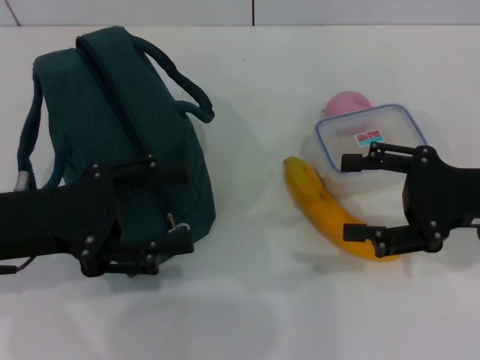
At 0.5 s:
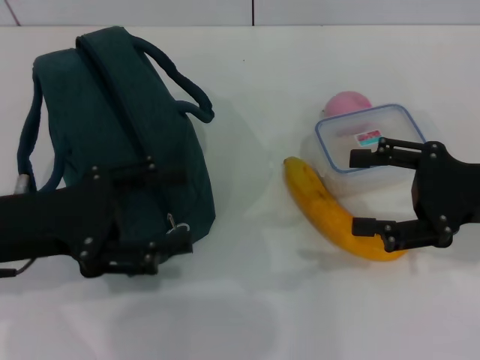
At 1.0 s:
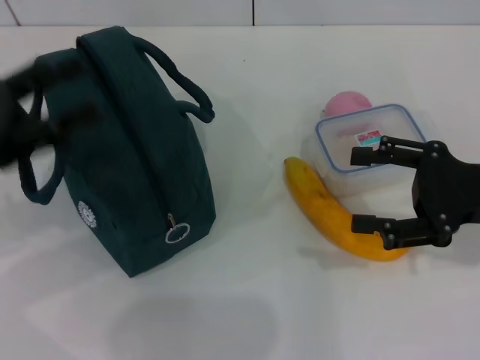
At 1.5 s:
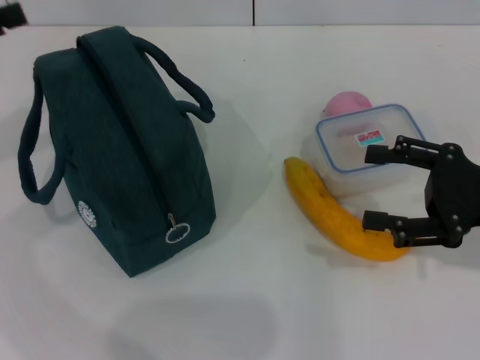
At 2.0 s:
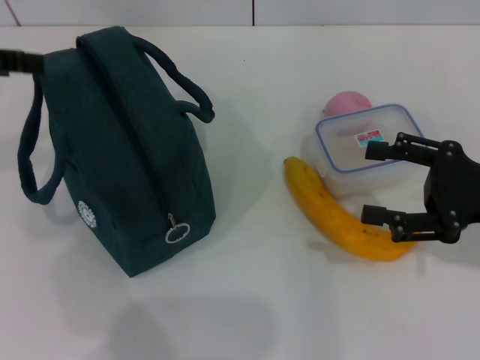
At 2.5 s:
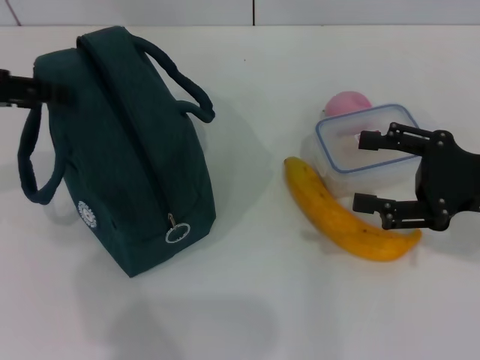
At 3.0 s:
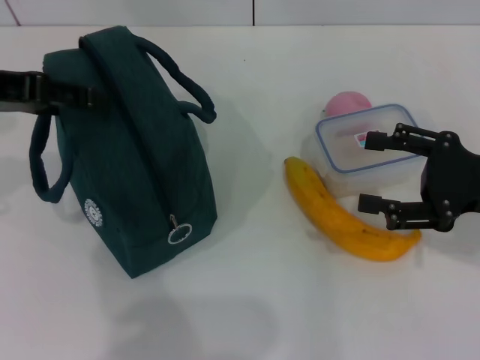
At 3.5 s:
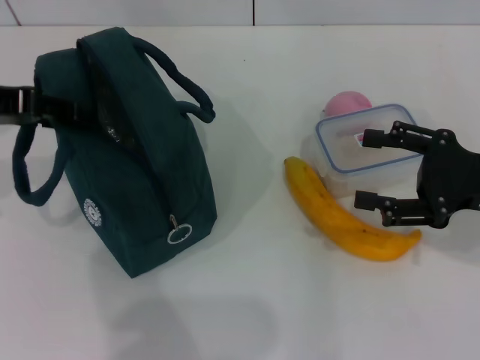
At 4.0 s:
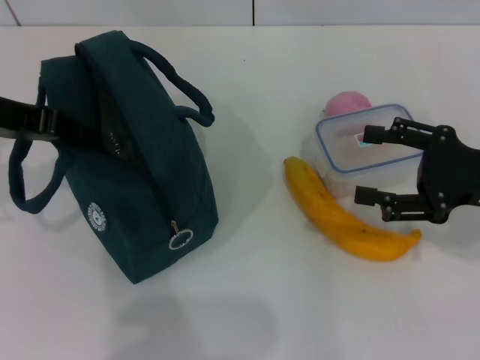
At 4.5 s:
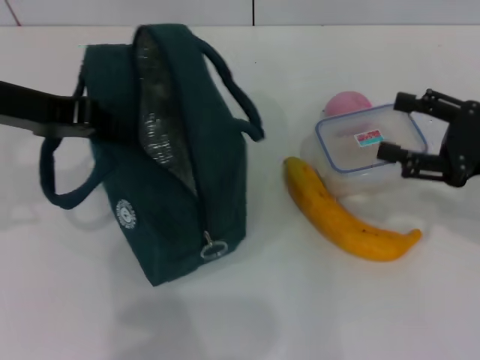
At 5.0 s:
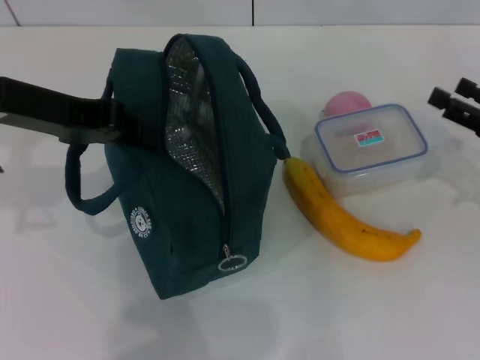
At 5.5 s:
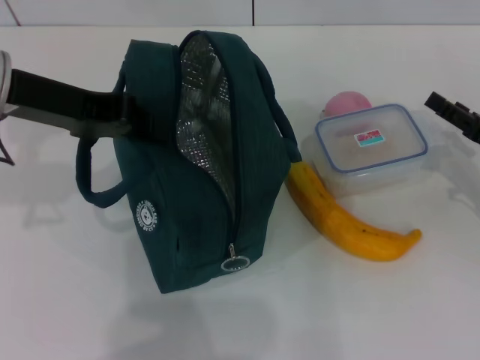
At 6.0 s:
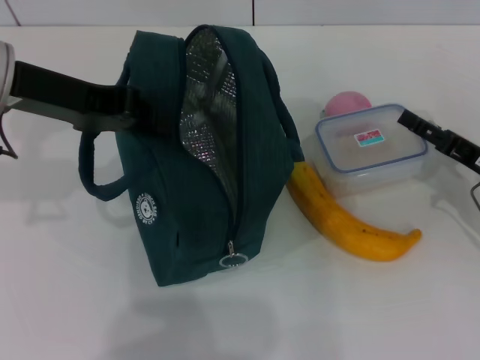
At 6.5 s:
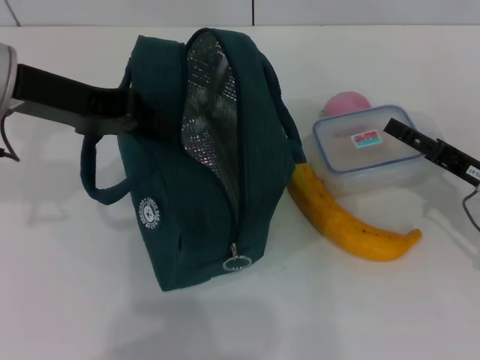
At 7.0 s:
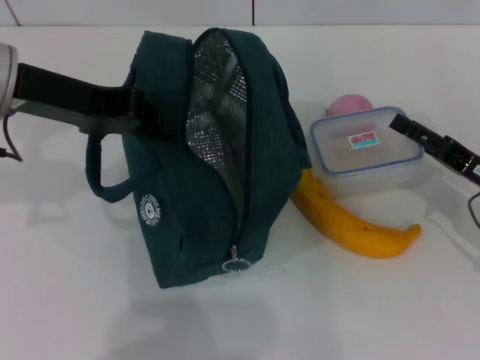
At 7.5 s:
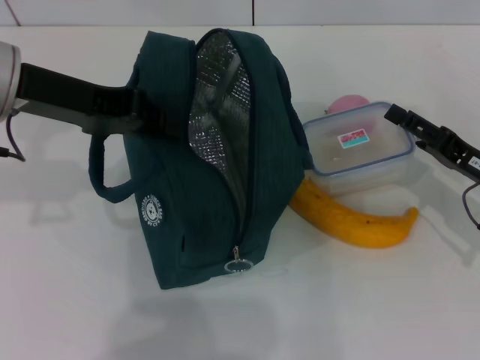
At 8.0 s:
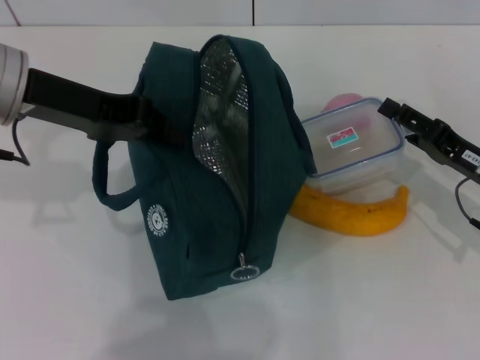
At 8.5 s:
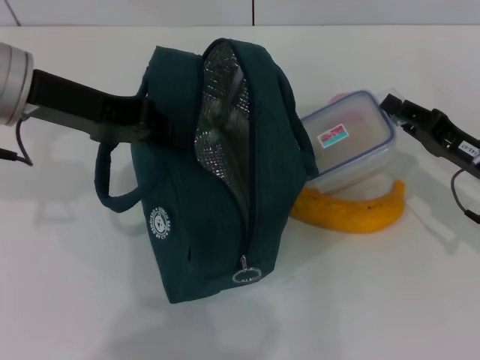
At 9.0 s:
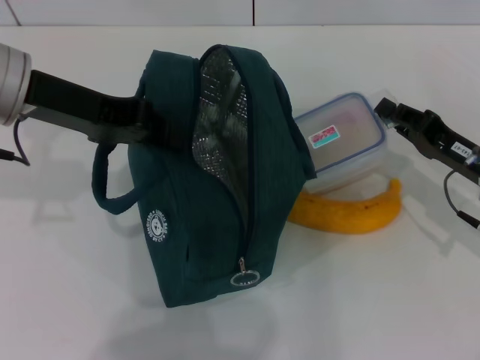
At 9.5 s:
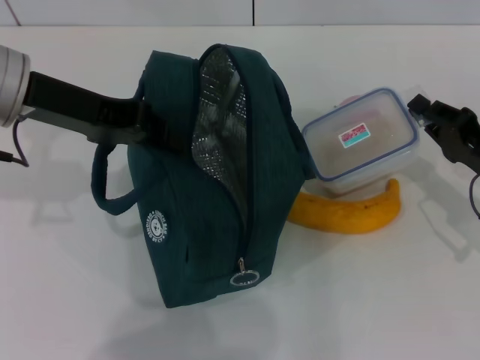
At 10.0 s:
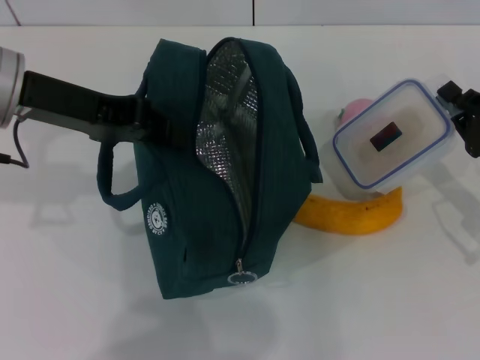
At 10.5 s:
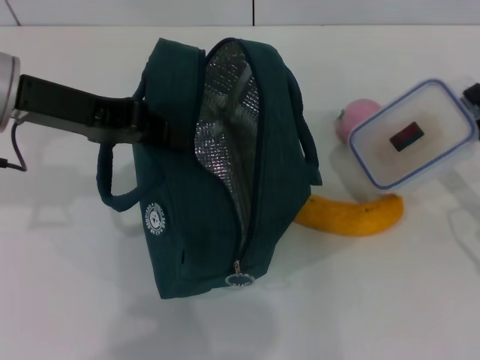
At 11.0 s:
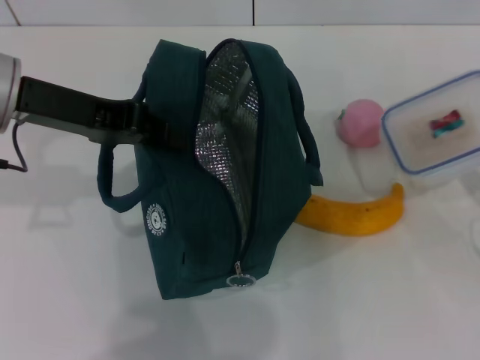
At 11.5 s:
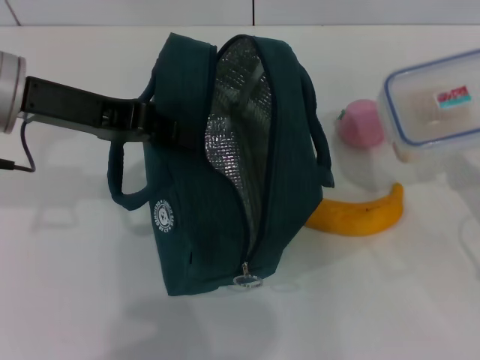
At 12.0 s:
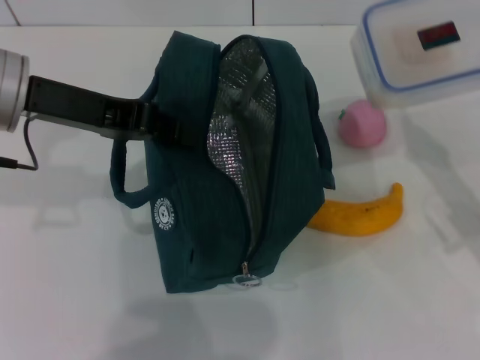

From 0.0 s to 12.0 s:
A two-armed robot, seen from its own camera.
Step, from 0.0 s to 3.5 s: Hold the lunch bag with your left hand.
Step, from 4.0 s to 9.0 s: Pick up the lunch box with your right hand.
From 0.0 s to 2.0 s: The left gripper is displaced upward, to the left and forward by some 15 cm.
From 2.0 s to 4.0 s: The left gripper goes approximately 5 cm to the right, and closes its fingers.
From 4.0 s to 6.0 s: The left gripper is displaced to the right by about 5 cm, and closes its fingers, while the right gripper is displaced downward by about 10 cm.
From 6.0 s to 8.0 s: The grippers make only small movements.
From 8.0 s to 10.0 s: The right gripper closes its fingers.

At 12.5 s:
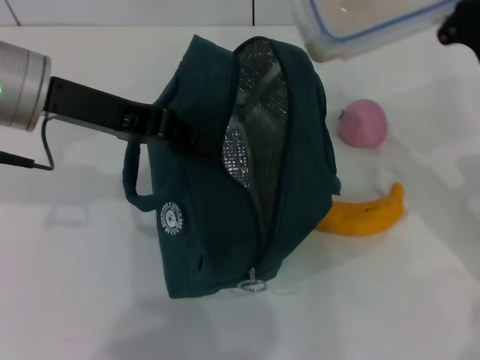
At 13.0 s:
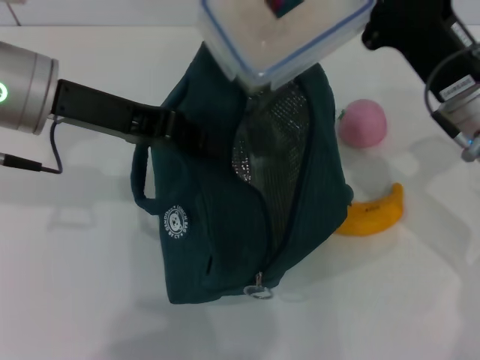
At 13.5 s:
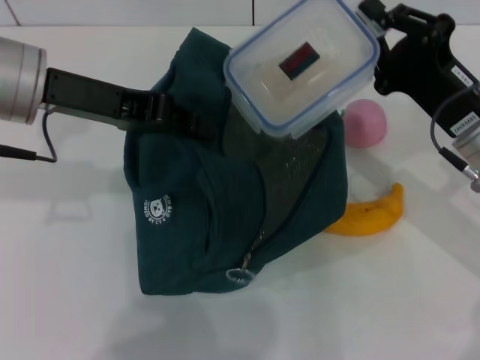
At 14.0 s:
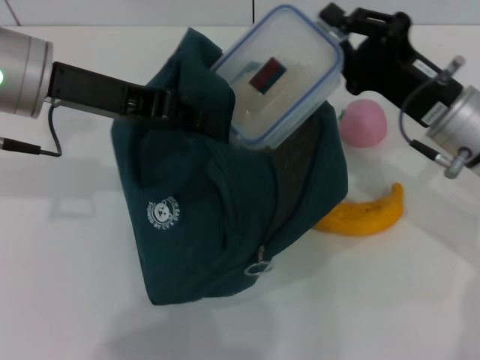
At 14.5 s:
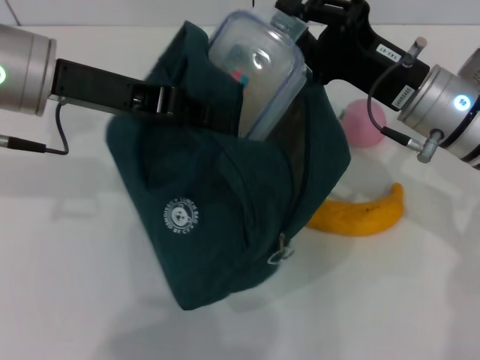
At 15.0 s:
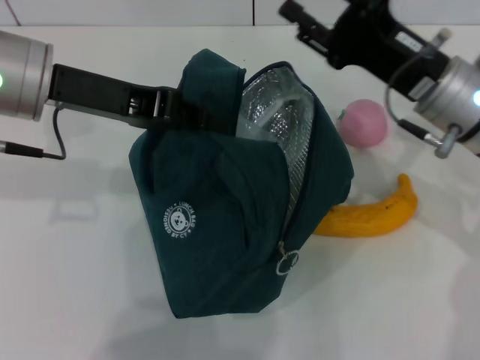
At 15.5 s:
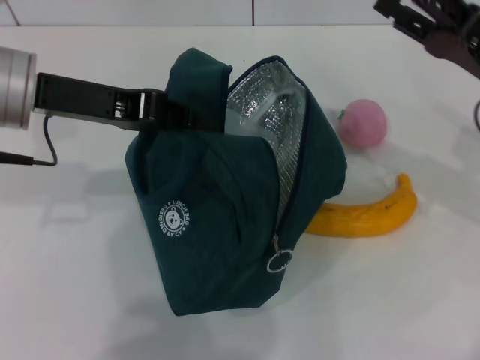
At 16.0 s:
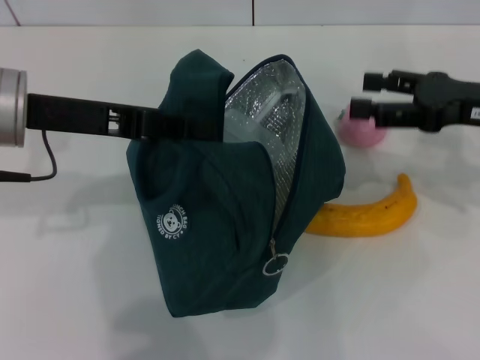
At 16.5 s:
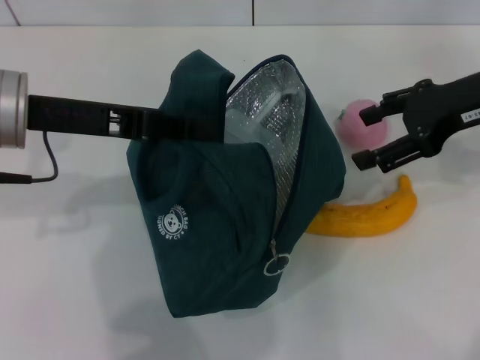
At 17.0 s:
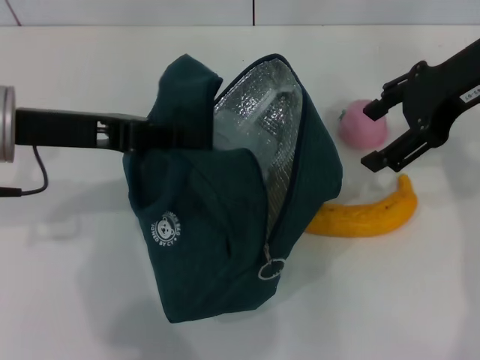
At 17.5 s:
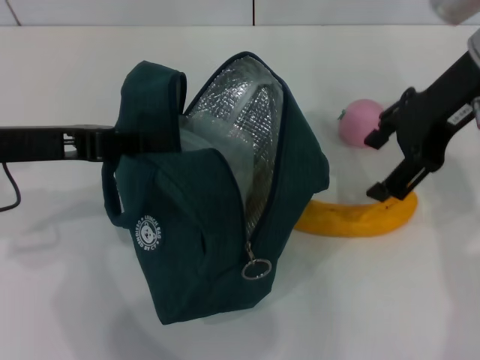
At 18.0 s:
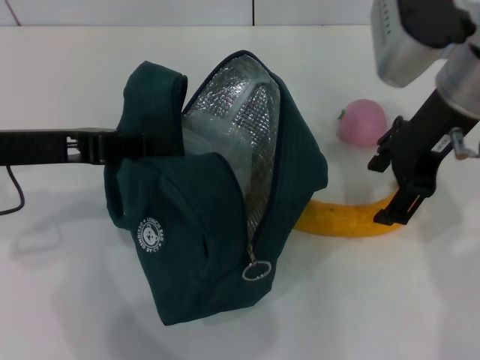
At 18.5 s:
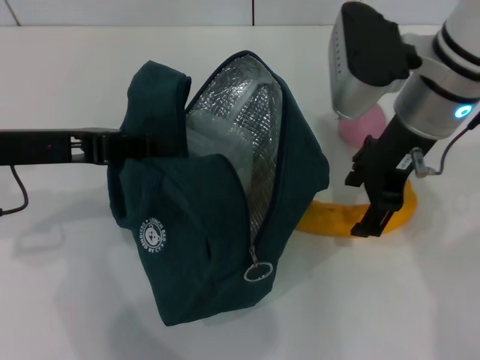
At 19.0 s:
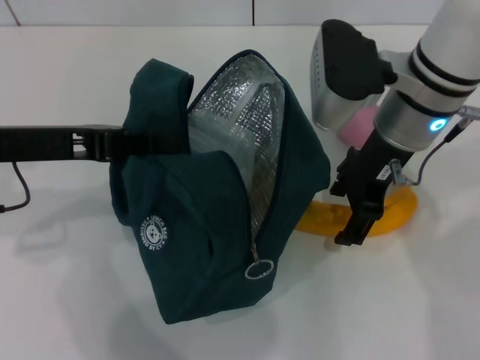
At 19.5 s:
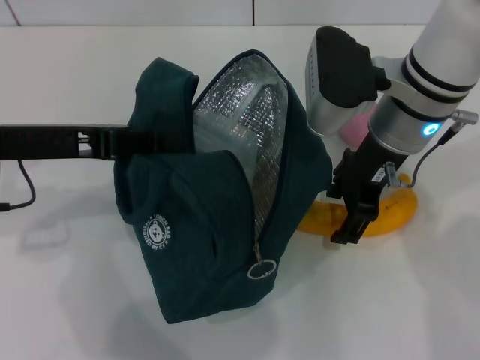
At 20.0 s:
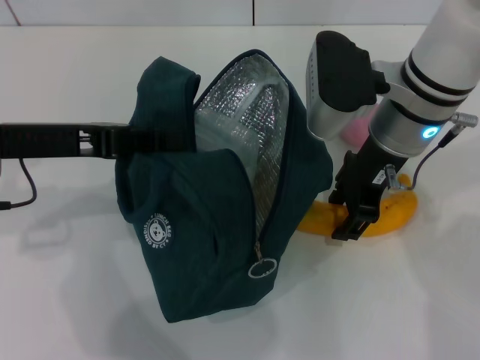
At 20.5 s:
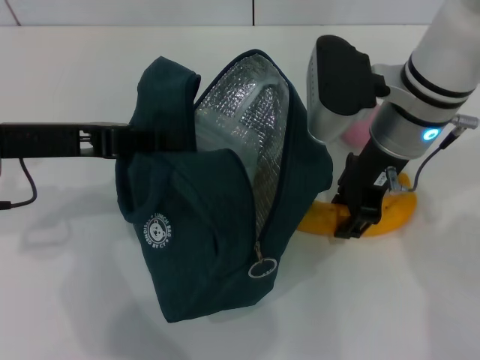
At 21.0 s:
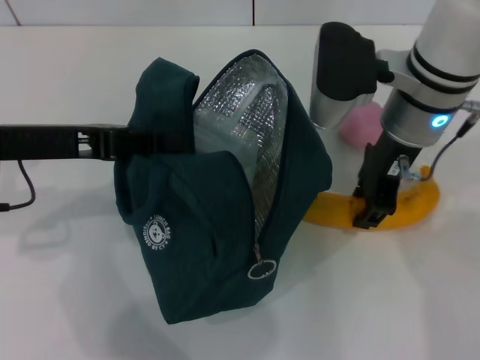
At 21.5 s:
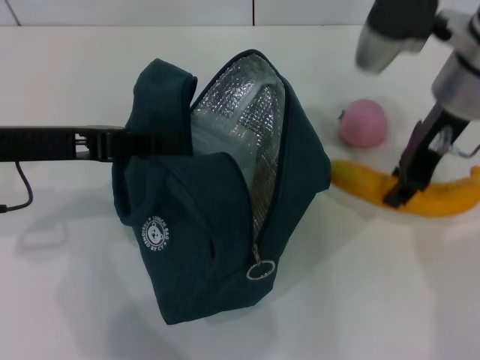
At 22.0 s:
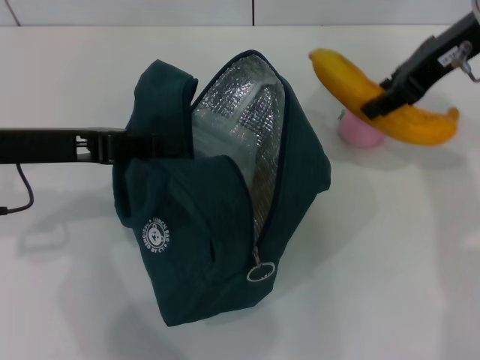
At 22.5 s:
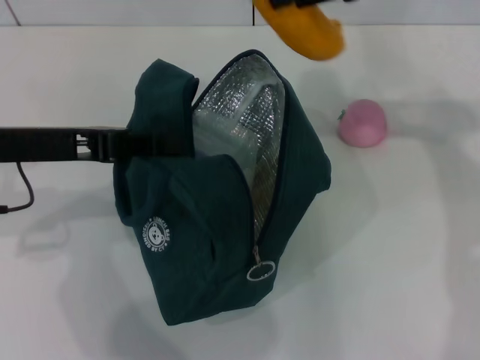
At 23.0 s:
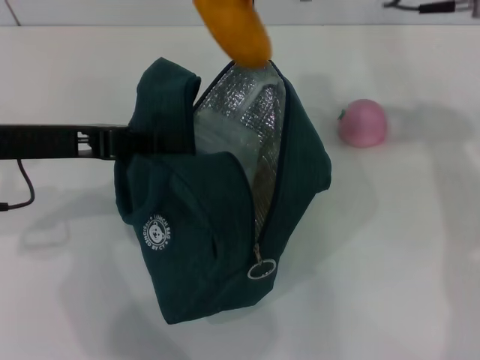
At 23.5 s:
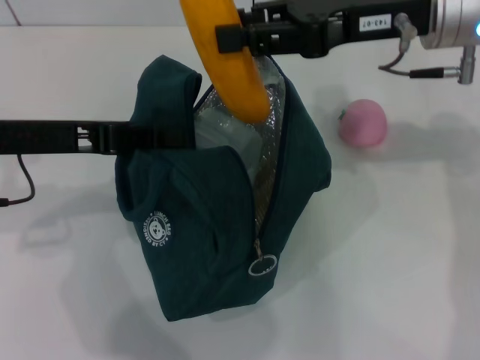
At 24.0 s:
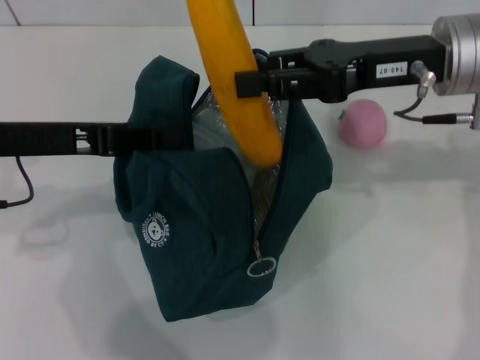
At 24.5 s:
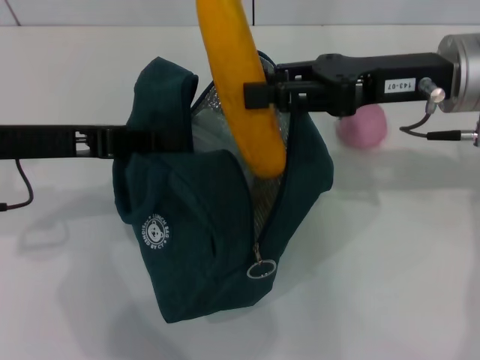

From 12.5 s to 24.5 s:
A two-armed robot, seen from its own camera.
Step, from 12.5 s to 14.5 s: Place the lunch box into the lunch bag with your right hand.
Step, from 15.0 s to 20.5 s: Take the banana with your right hand.
From 12.5 s to 14.5 s: The right gripper travels to the left by roughly 5 cm.
From 14.5 s to 16.5 s: The right gripper is displaced upward and to the right by approximately 10 cm, and opens its fingers.
From 16.5 s to 18.5 s: The right gripper heads to the left, covering approximately 10 cm.
From 18.5 s to 20.5 s: The right gripper closes its fingers.
From 20.5 s to 22.5 s: The right gripper heads upward, covering some 15 cm.
From 22.5 s to 24.5 s: The right gripper is displaced downward by approximately 10 cm.

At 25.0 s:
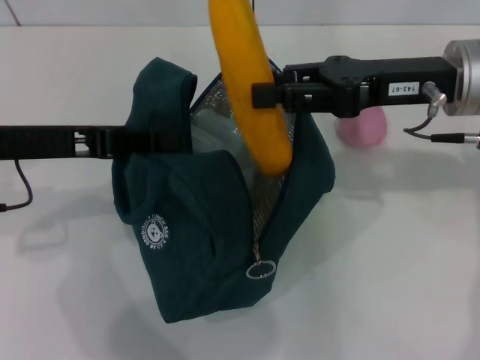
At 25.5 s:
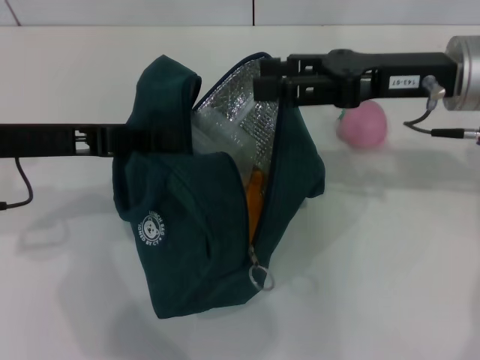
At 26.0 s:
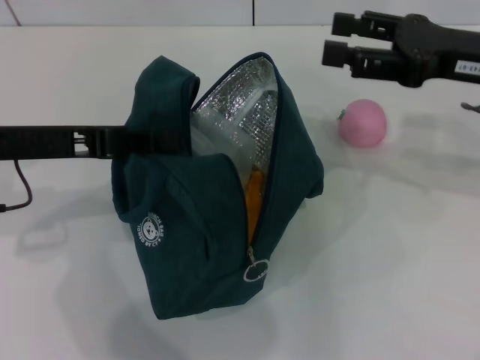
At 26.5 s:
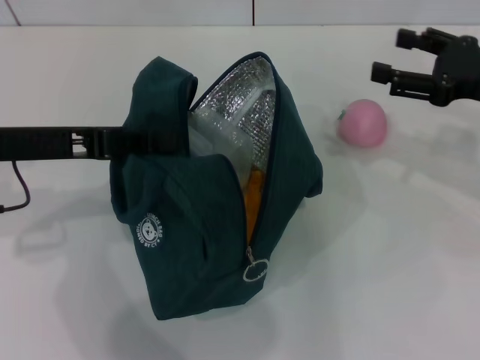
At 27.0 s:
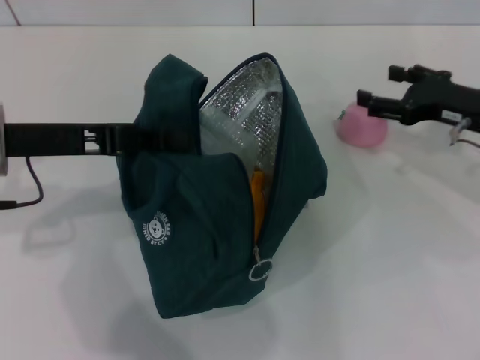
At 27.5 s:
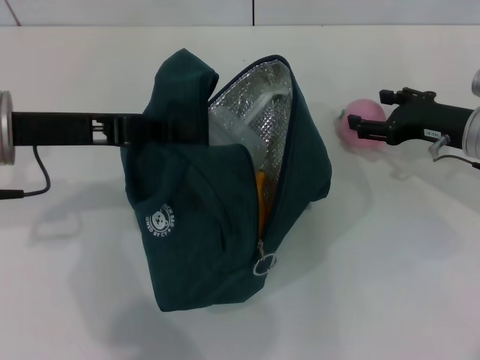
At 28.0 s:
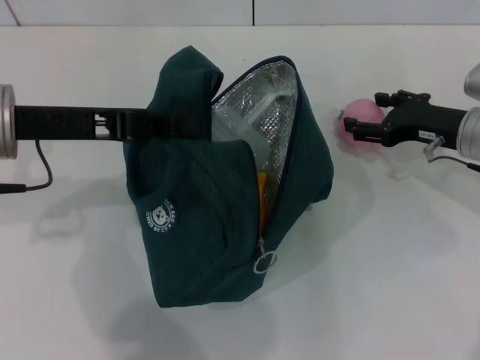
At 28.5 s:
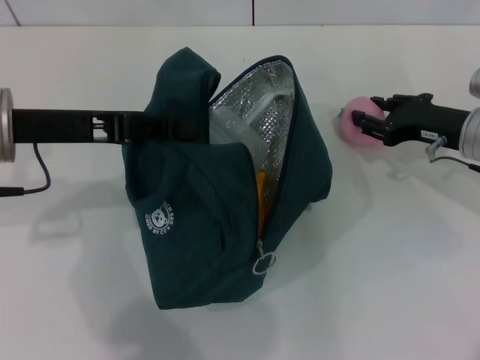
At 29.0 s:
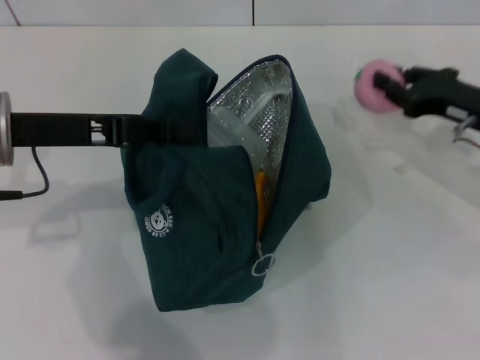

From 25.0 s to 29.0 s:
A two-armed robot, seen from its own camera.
Step, from 25.5 s to 28.5 s: Grab the peach with your right hand.
From 25.0 s to 27.0 s: The right gripper goes about 15 cm downward and to the right, and opens up.
From 27.0 s to 29.0 s: The right gripper closes up.
